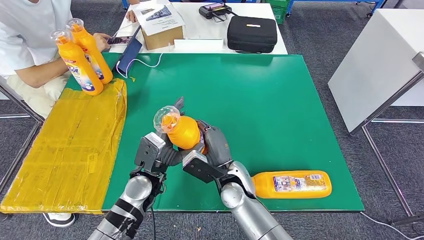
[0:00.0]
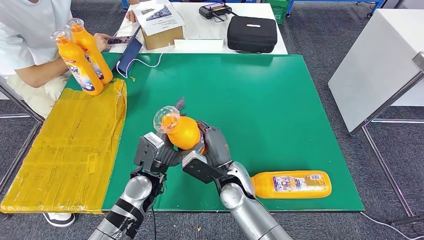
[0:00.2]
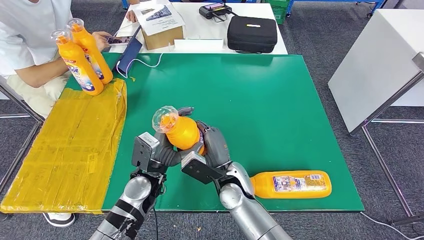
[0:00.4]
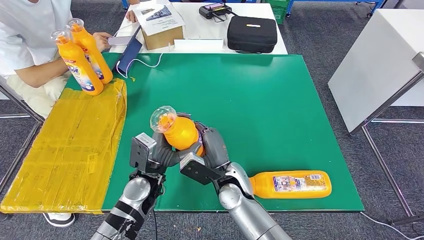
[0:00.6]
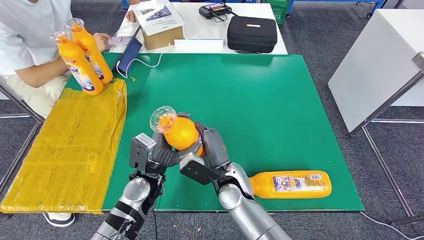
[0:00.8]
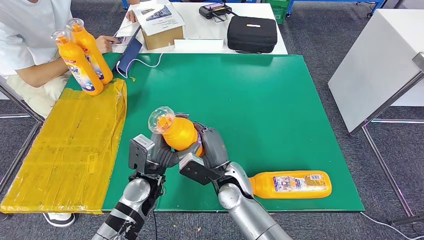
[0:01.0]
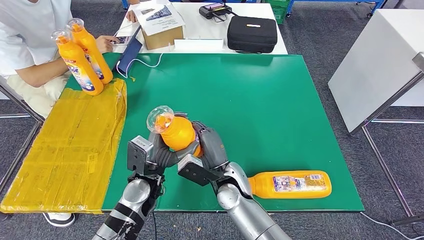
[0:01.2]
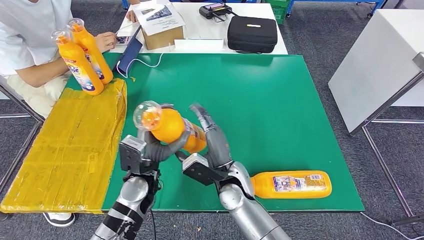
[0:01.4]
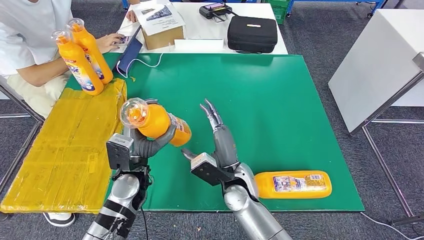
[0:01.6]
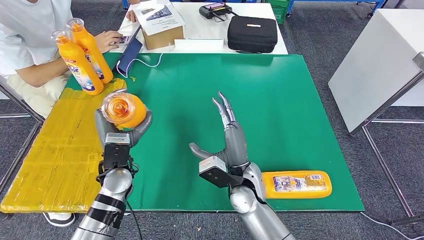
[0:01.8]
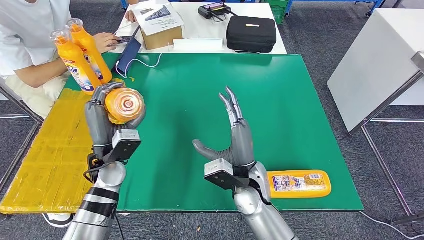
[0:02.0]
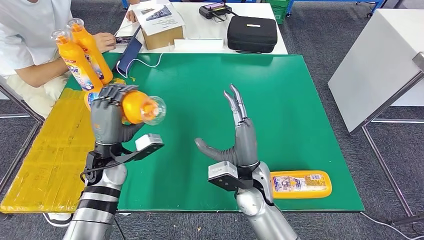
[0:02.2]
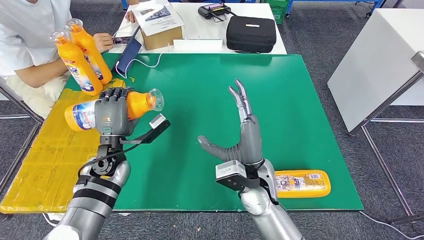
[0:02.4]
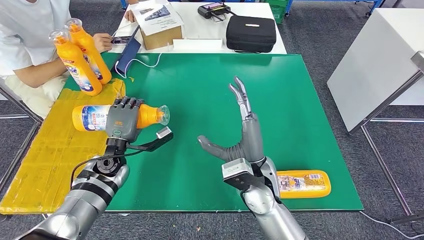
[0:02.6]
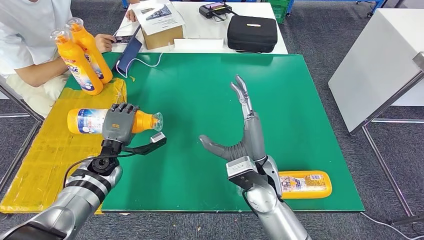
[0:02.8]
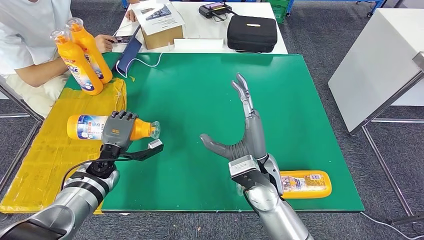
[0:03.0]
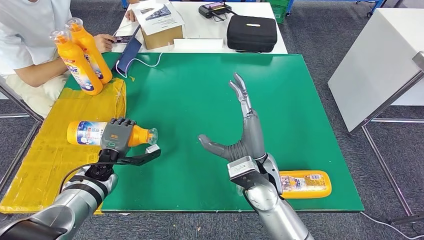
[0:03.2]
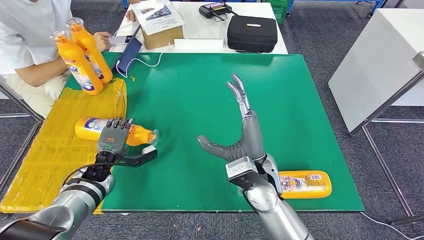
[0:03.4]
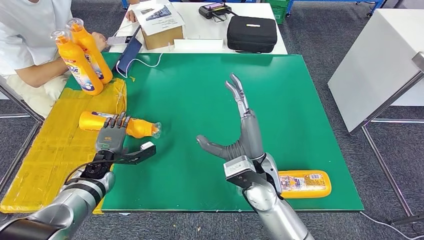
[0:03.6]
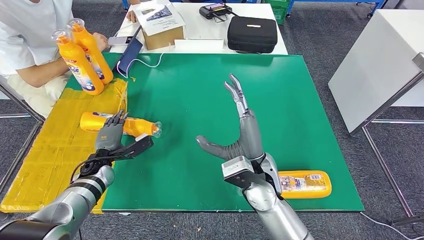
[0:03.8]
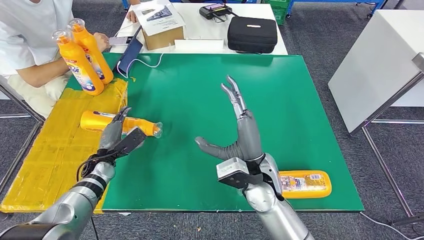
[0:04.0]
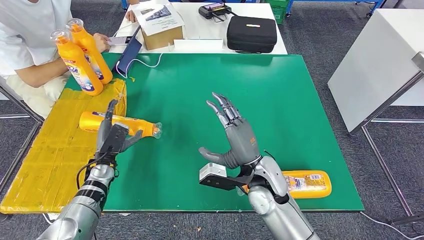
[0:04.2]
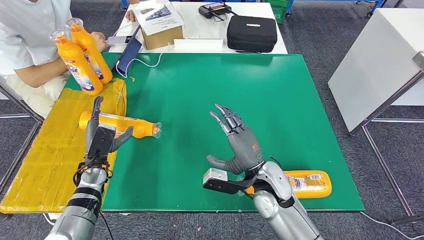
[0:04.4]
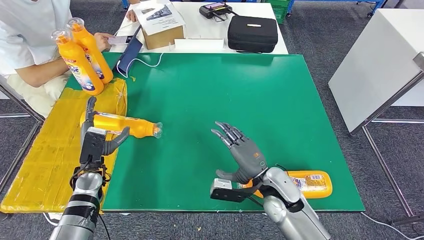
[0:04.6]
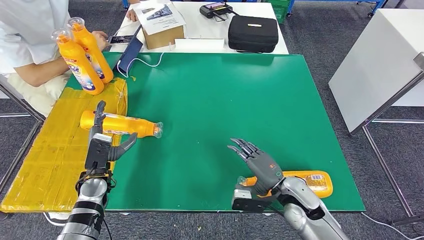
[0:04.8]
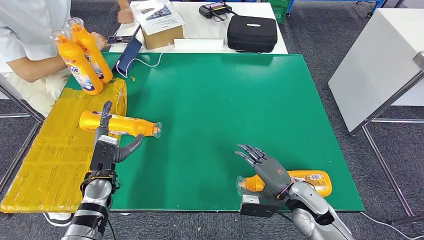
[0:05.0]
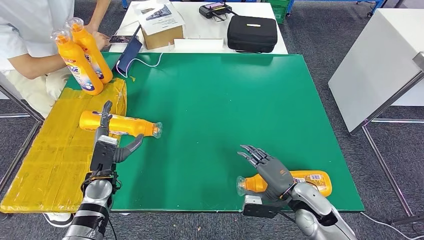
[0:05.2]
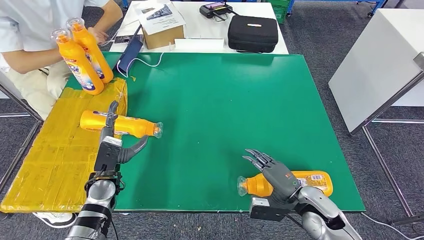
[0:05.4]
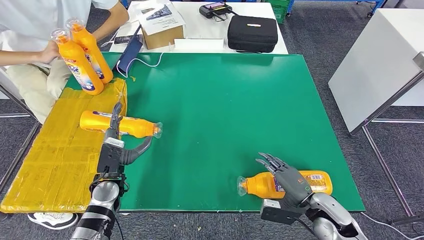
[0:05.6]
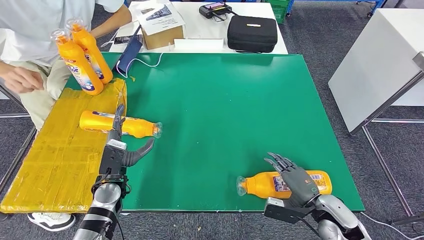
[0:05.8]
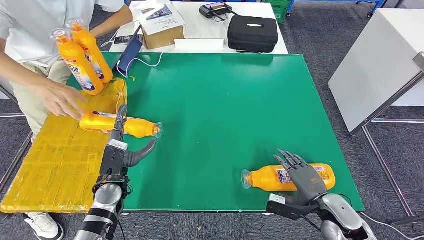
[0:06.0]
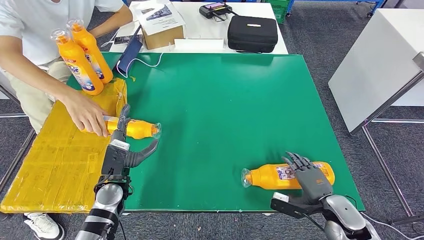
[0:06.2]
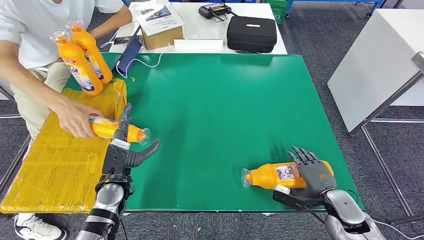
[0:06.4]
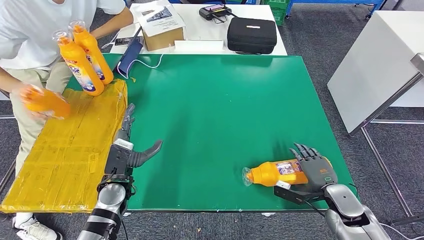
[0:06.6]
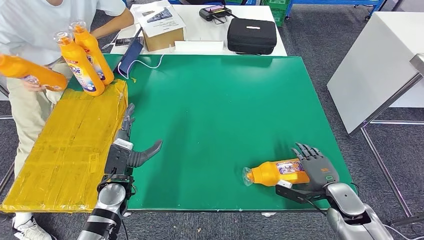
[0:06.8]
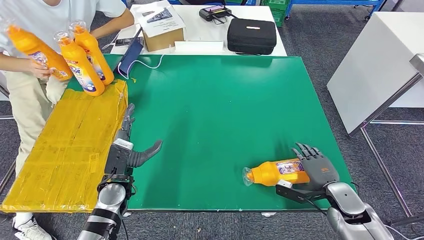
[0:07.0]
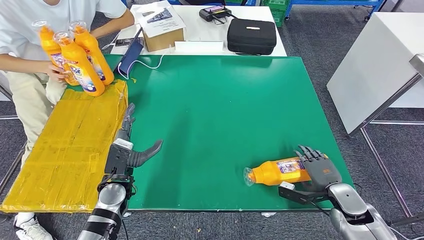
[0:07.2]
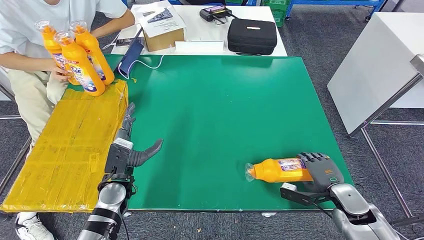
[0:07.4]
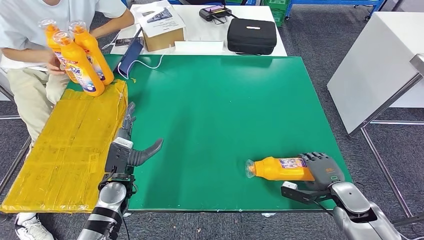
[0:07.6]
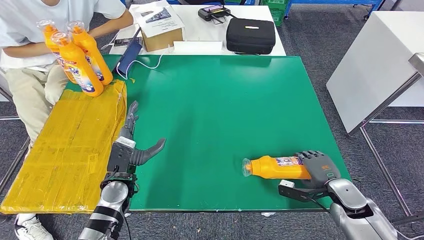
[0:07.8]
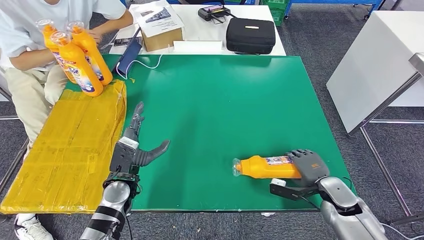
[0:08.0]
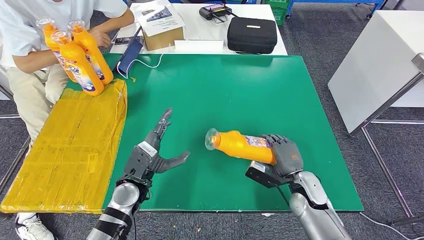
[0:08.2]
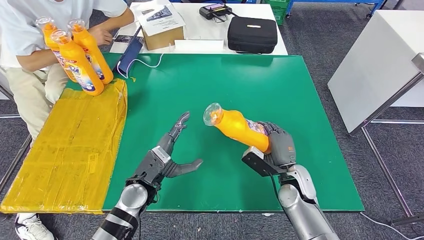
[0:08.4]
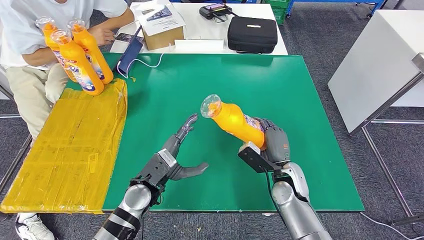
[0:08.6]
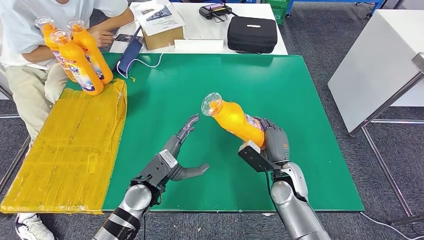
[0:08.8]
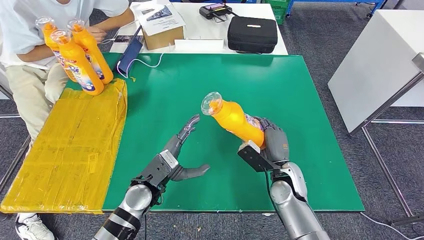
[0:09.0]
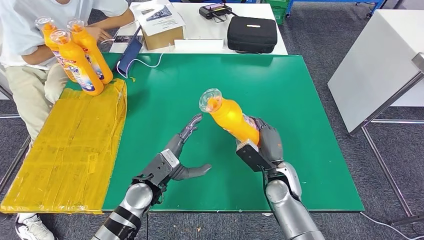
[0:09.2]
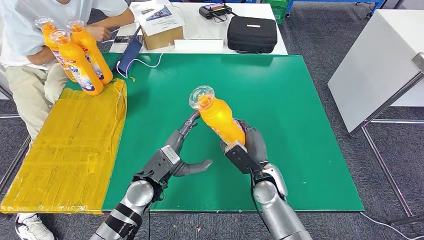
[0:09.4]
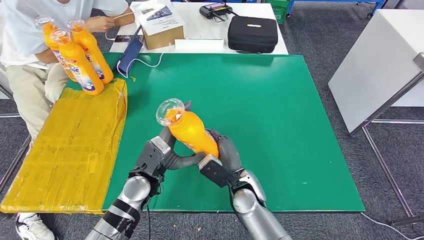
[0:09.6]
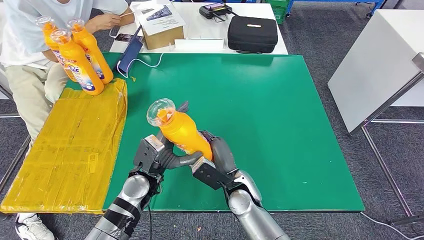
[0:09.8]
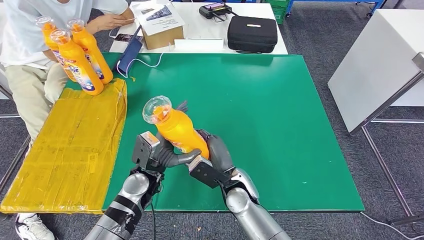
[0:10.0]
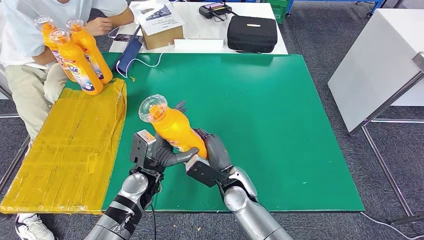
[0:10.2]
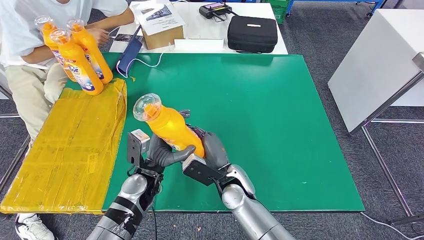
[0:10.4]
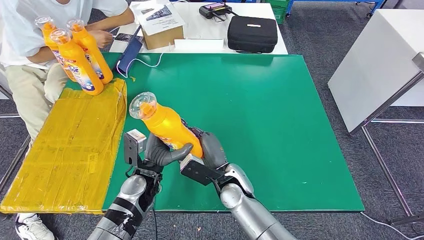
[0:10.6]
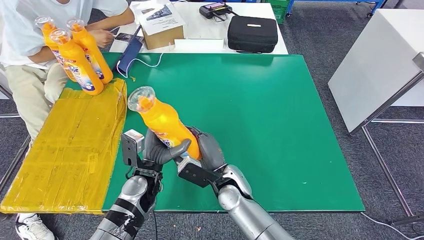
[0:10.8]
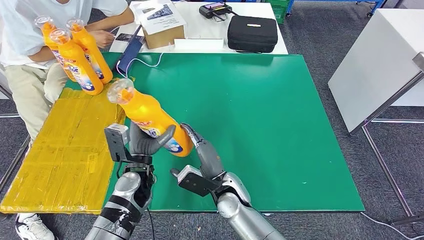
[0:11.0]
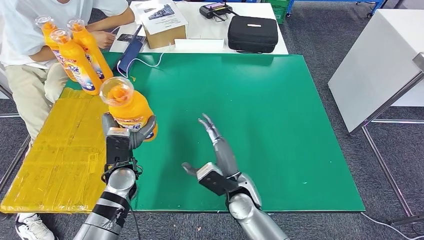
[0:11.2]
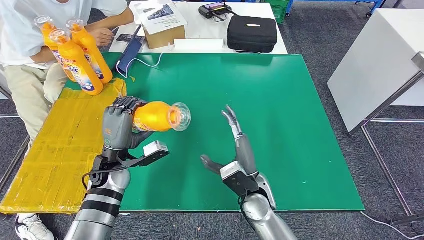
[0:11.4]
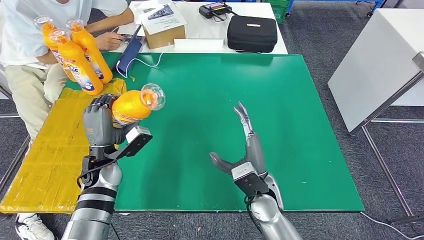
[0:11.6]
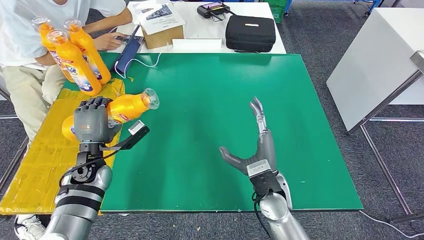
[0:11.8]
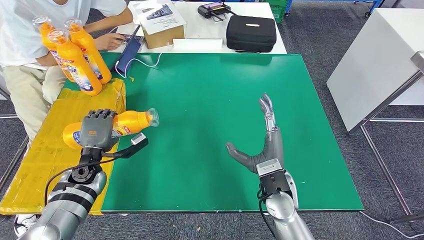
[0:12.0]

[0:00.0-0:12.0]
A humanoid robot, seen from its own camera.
Step, 0:00.0 to 0:05.8: Flip the fast-moving consumer goods bottle to the front side.
Step, 0:06.2 to 0:10.2: Pick up the fast-moving consumer goods bottle from the table.
0:01.6 to 0:03.0: The right hand goes approximately 5 cm upward; the left hand shifts some 15 cm to the left, forward and downward.
0:03.0 to 0:04.4: The right hand moves approximately 5 cm.
0:09.0 to 0:10.4: The right hand heads to the left, covering some 15 cm.

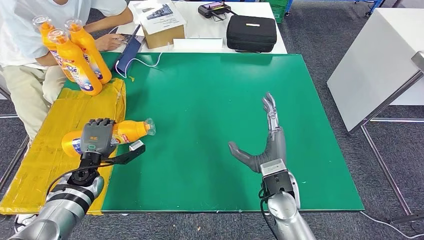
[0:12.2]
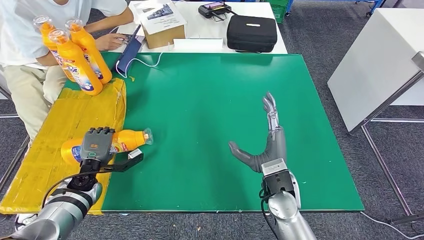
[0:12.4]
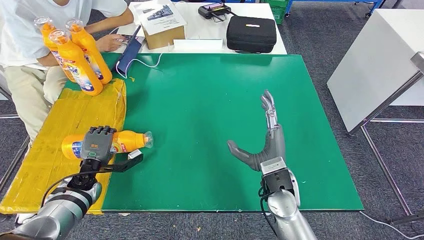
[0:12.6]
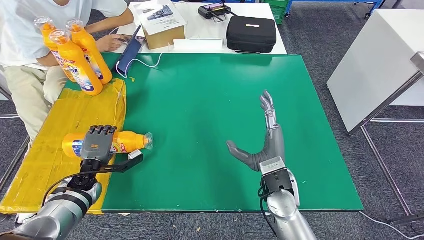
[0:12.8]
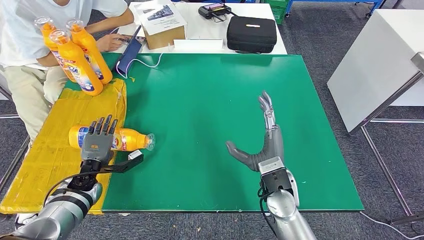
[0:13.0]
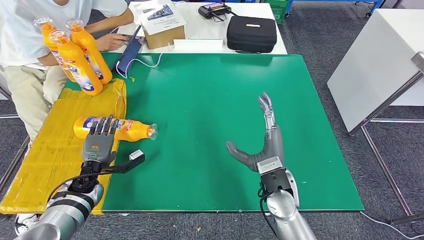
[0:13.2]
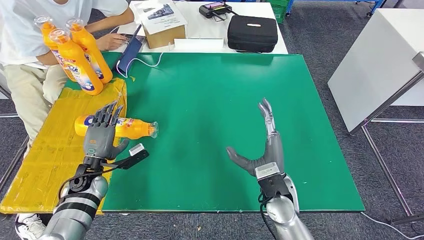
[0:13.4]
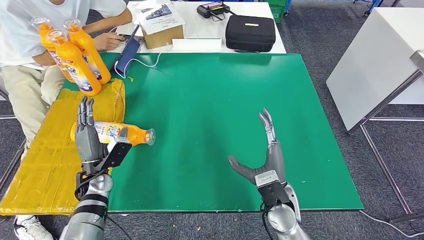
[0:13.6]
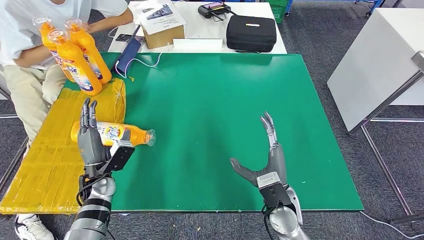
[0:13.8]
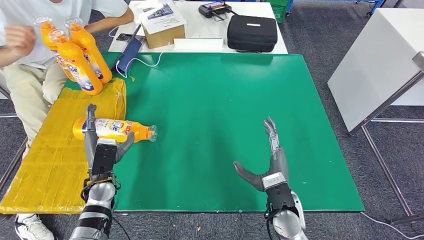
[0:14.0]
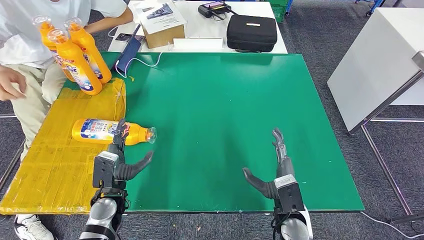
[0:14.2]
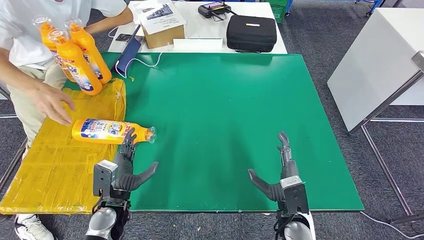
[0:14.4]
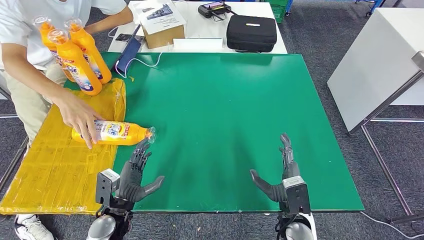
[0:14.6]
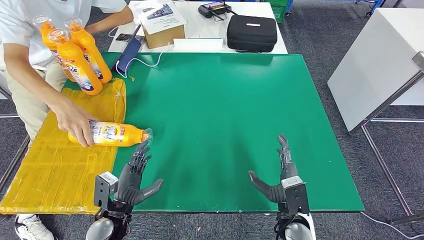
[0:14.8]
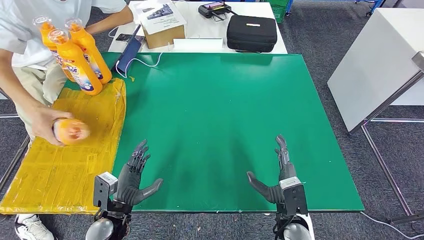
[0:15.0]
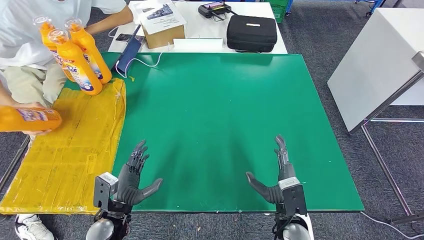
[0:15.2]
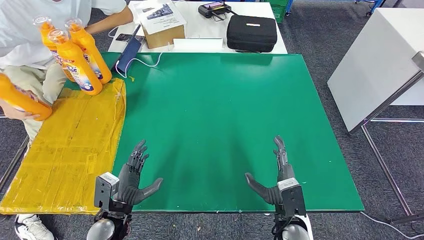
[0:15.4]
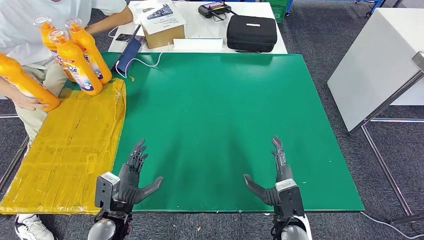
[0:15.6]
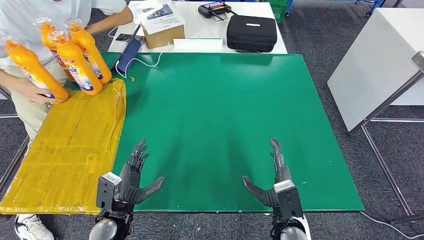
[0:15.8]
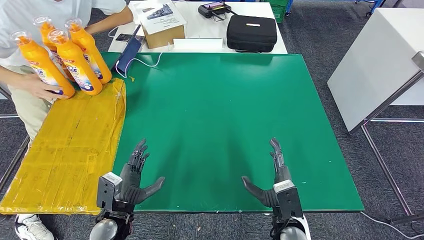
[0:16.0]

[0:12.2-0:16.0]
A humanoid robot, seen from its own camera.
Step, 0:12.2 to 0:16.0: Flip the fast-moving consumer goods bottle to the front side.
0:12.2 to 0:13.4: The hands move only a little.
0:13.4 to 0:14.8: The right hand goes some 10 cm downward and backward; the left hand moves backward and to the right, roughly 15 cm.
0:14.8 to 0:16.0: There are only small adjustments of the hands.
